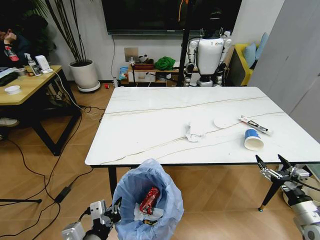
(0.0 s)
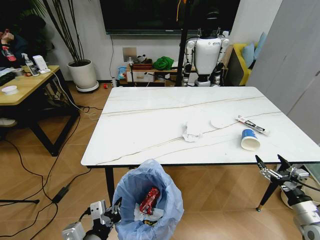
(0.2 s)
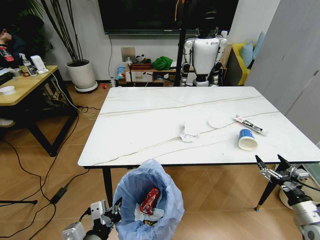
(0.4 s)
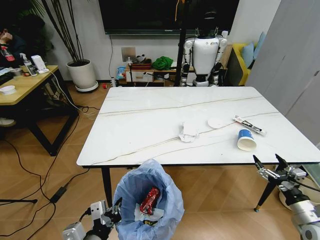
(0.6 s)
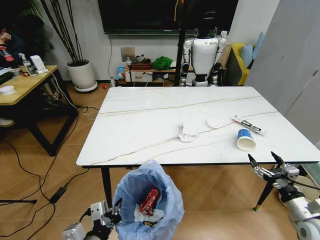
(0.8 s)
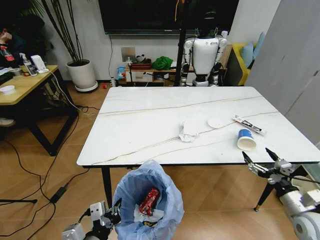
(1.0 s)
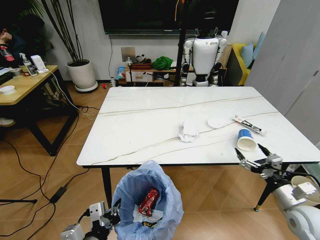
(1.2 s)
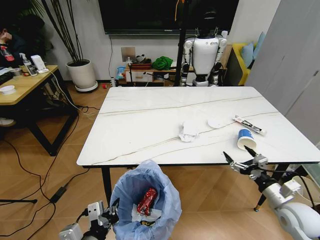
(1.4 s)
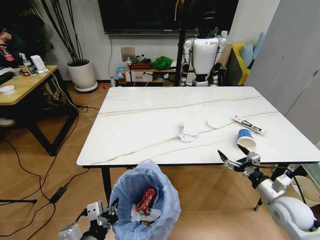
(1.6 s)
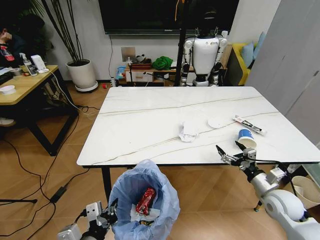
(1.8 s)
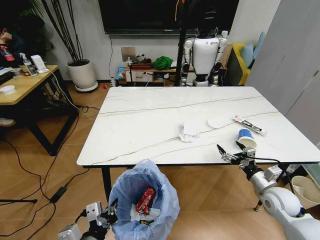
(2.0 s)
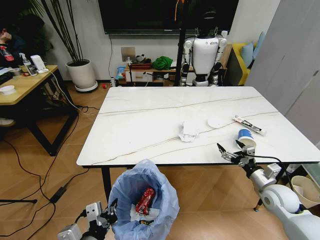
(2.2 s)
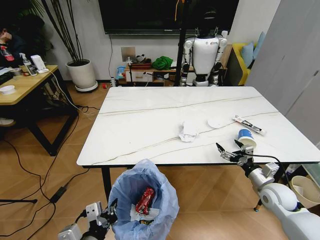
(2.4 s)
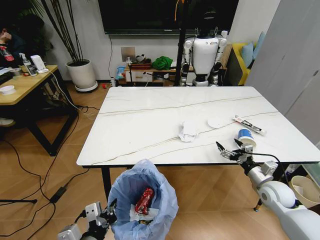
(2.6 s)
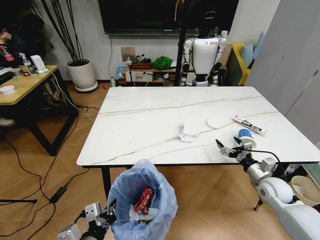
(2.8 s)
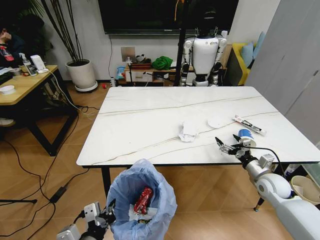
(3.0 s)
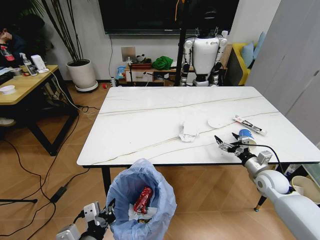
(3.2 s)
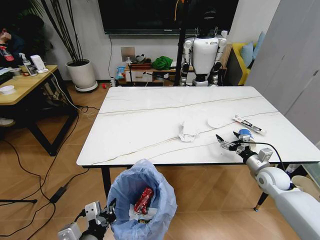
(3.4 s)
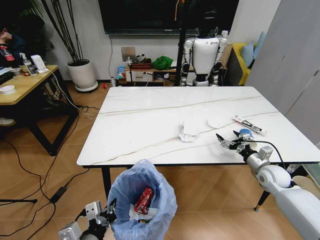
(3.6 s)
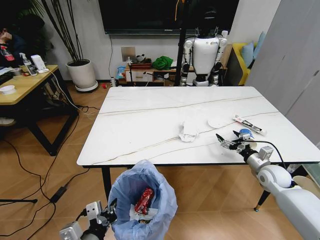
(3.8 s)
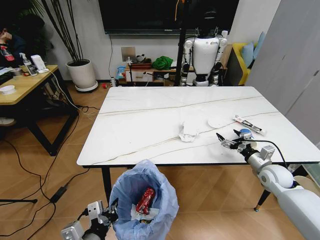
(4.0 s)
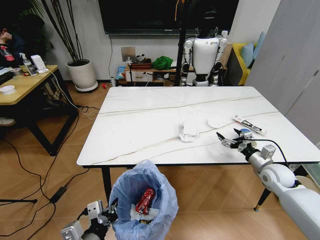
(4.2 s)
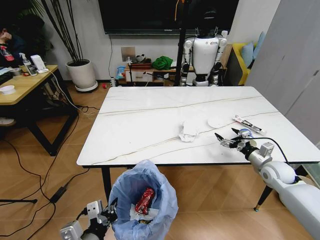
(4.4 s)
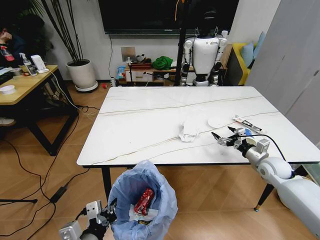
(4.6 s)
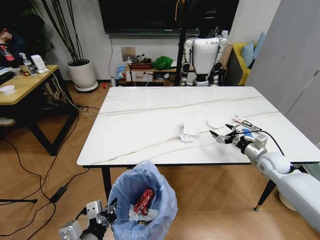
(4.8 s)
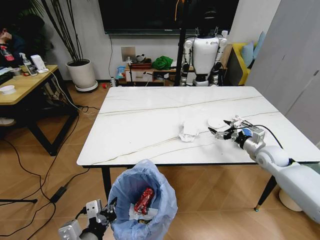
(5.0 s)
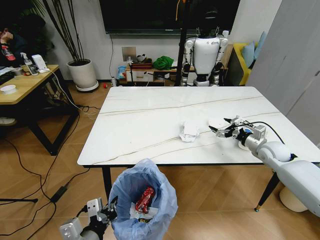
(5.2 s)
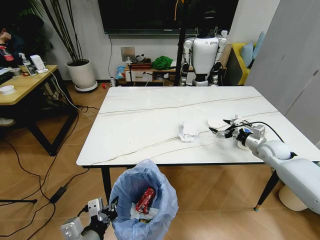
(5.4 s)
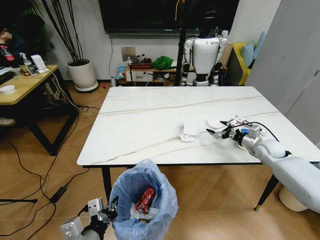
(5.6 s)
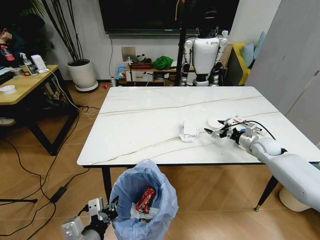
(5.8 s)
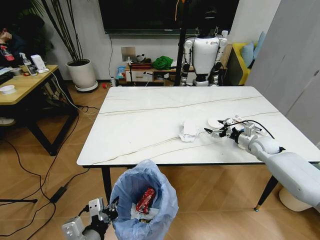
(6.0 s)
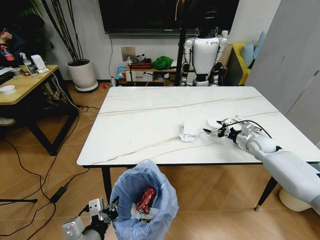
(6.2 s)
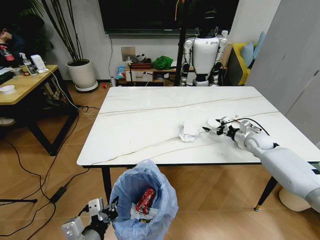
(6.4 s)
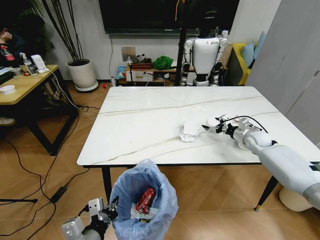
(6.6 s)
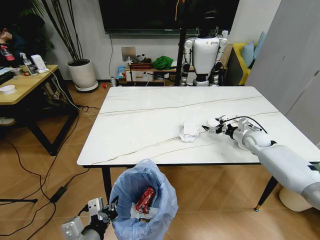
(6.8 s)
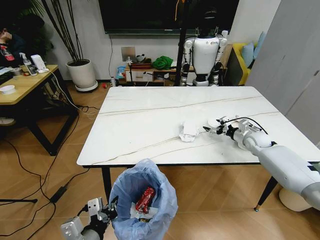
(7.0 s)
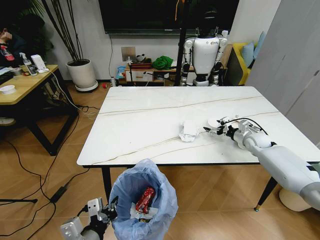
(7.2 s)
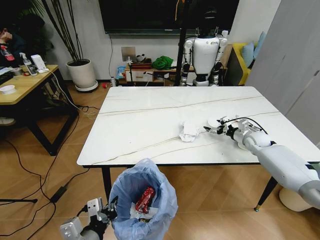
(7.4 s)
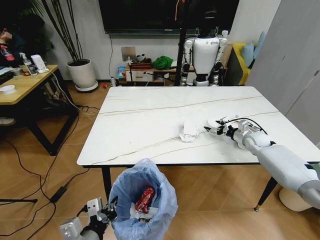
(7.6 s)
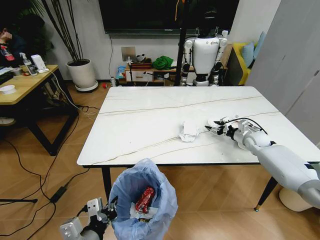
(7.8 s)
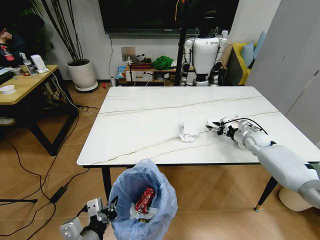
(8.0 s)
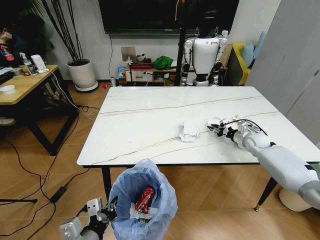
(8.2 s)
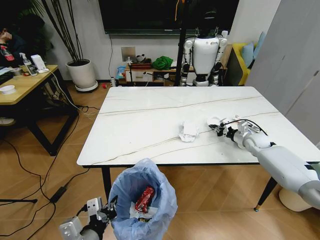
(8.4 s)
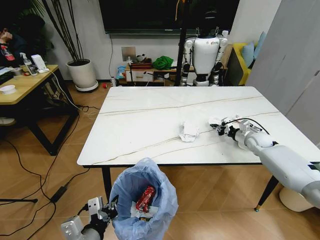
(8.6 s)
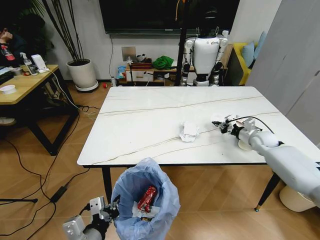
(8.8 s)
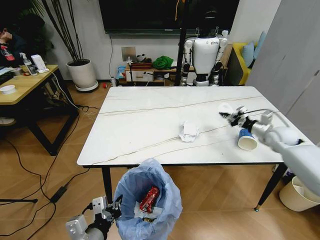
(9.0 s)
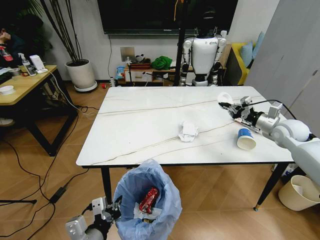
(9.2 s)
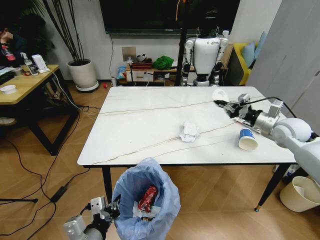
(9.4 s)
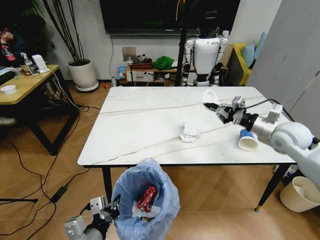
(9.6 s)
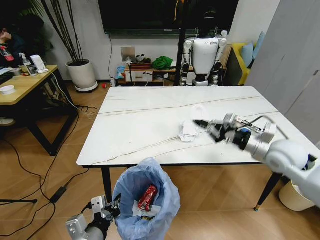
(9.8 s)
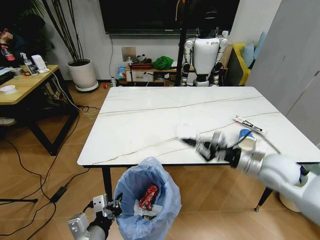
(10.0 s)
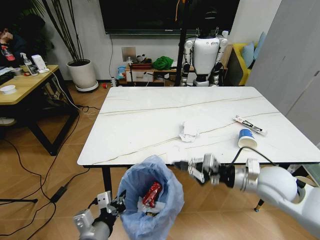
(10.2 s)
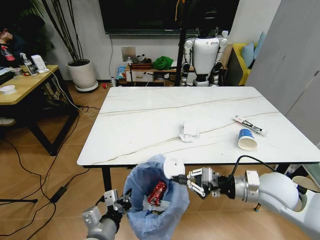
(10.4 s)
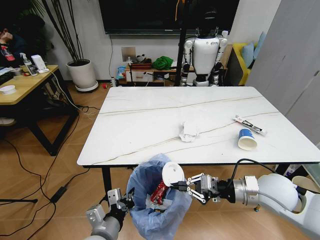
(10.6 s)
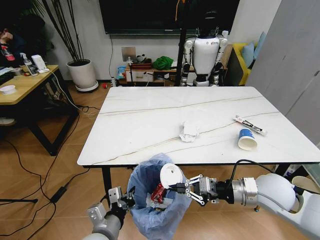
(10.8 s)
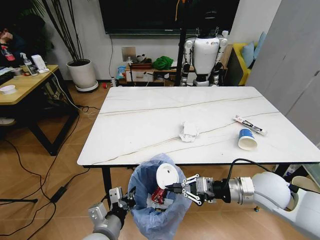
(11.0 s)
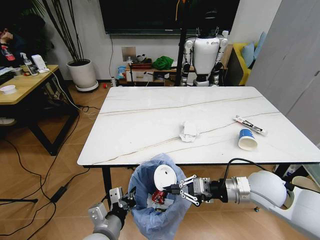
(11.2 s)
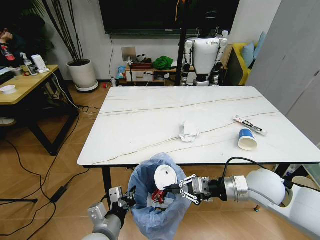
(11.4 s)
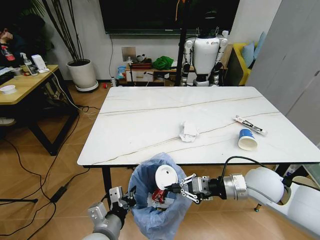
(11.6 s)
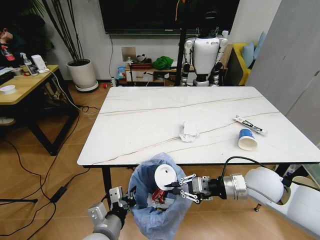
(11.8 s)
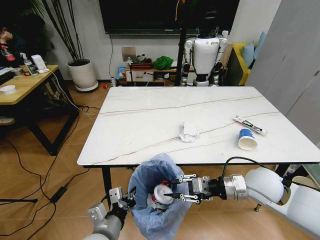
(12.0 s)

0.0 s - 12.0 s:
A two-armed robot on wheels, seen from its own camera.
Task of the whole recording: Pick up the trash bin and place the trash from the table into it.
0.0 s - 1.6 s: The right gripper travels to the left and forward by roughly 10 cm.
1.6 s - 3.0 s: The right gripper travels forward by some 10 cm.
3.0 s - 4.4 s: The grippers move only a little.
4.4 s - 6.0 s: The right gripper goes roughly 10 cm forward.
6.0 s - 7.6 s: The grippers make only small movements.
7.6 s - 9.0 s: The right gripper heads upward, covering roughly 5 cm, and closes up.
9.0 s - 10.4 s: The right gripper is displaced backward and to the left by some 30 cm.
10.4 s - 12.0 s: There are only small adjustments of the grippers.

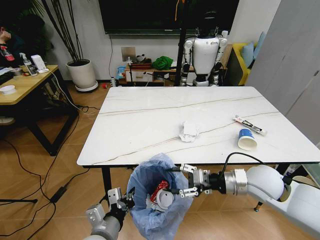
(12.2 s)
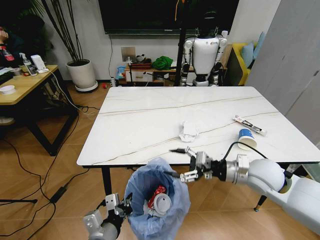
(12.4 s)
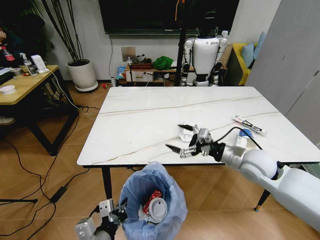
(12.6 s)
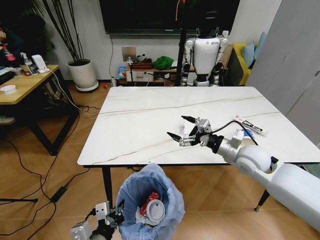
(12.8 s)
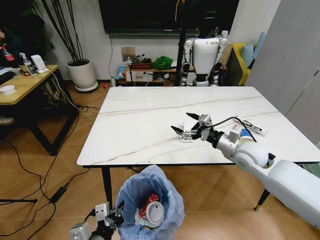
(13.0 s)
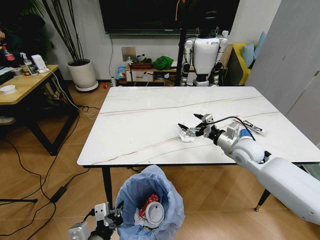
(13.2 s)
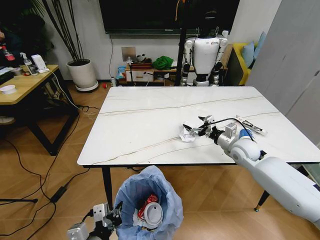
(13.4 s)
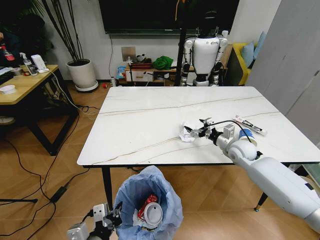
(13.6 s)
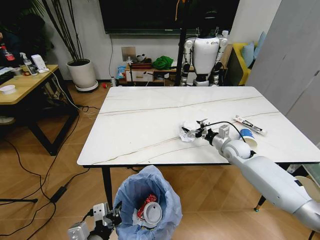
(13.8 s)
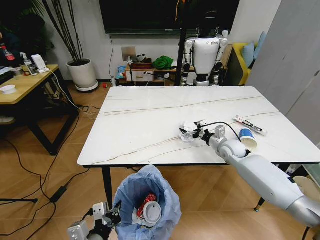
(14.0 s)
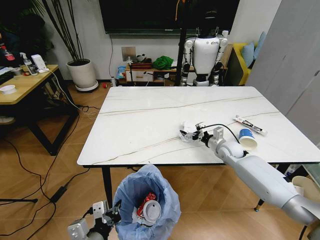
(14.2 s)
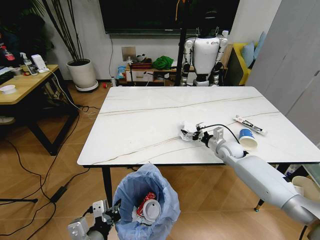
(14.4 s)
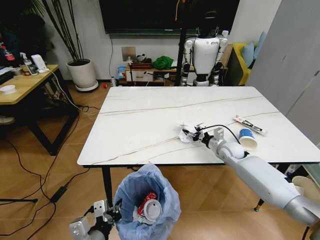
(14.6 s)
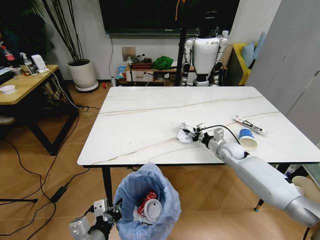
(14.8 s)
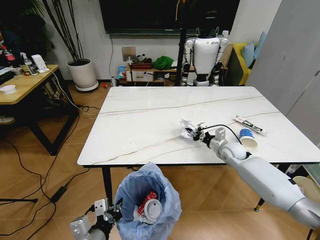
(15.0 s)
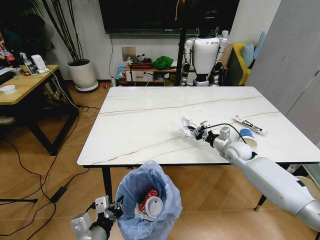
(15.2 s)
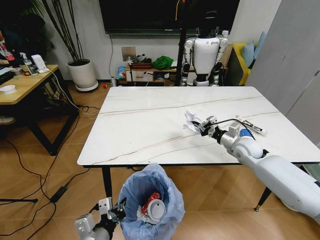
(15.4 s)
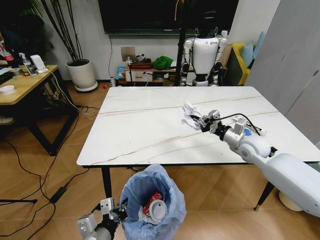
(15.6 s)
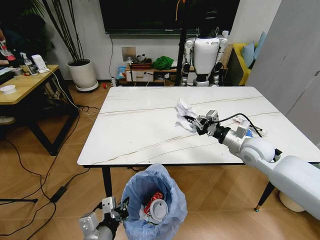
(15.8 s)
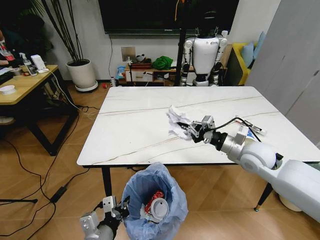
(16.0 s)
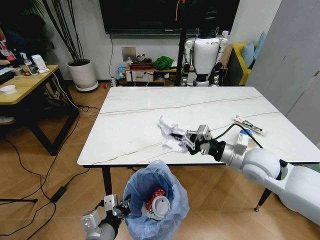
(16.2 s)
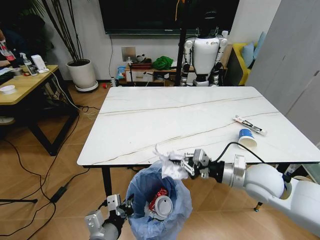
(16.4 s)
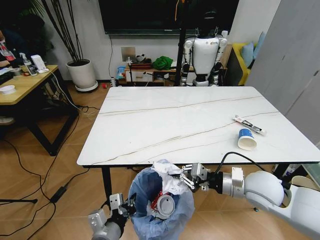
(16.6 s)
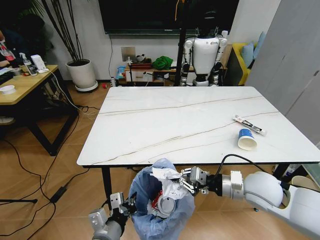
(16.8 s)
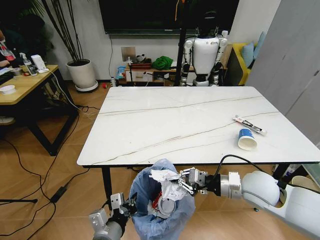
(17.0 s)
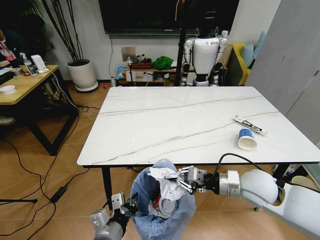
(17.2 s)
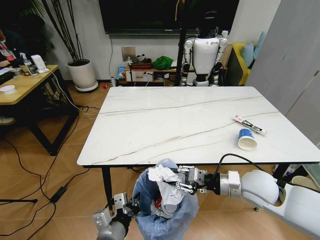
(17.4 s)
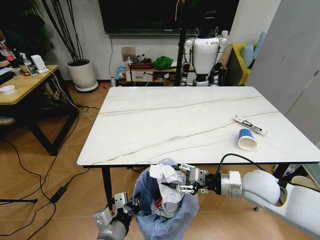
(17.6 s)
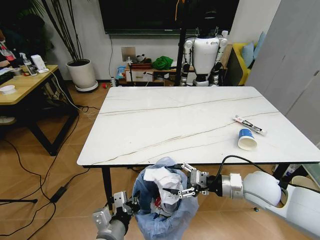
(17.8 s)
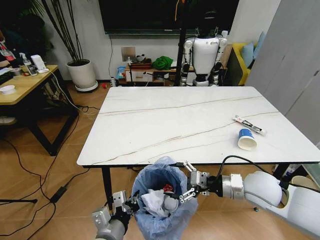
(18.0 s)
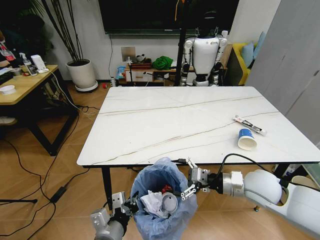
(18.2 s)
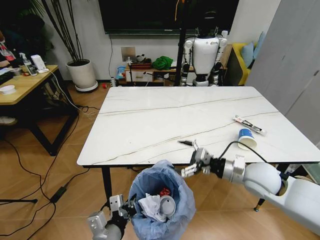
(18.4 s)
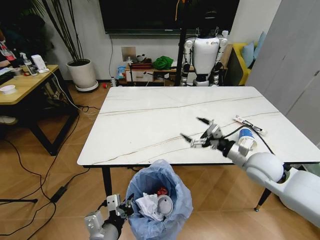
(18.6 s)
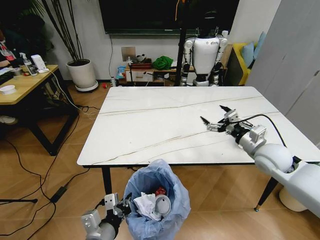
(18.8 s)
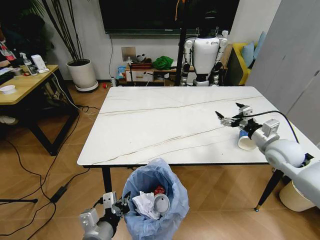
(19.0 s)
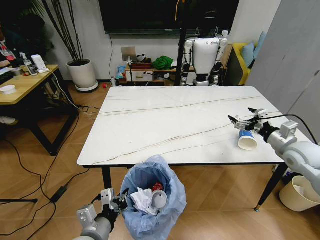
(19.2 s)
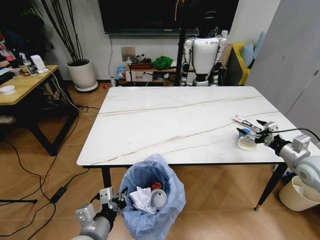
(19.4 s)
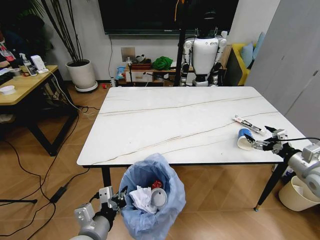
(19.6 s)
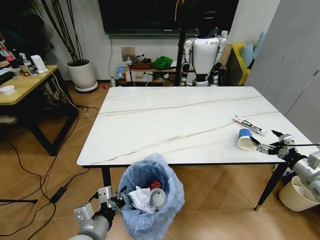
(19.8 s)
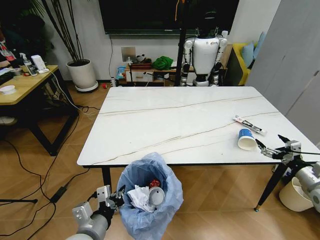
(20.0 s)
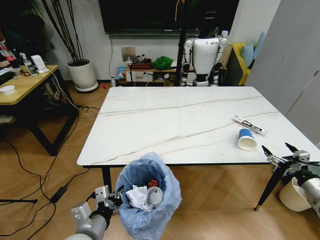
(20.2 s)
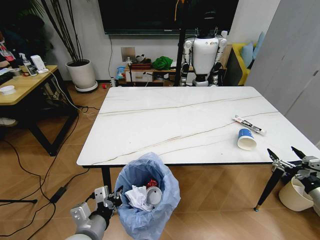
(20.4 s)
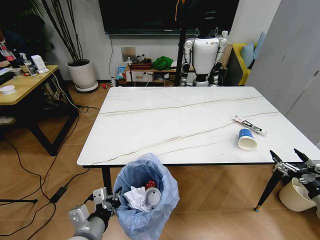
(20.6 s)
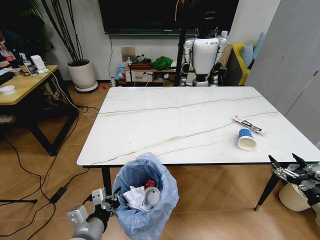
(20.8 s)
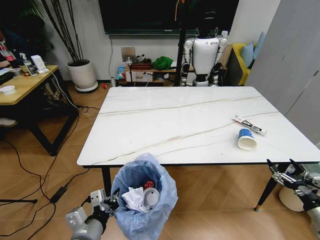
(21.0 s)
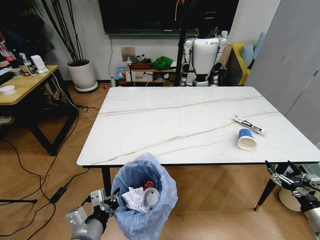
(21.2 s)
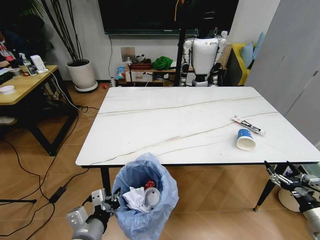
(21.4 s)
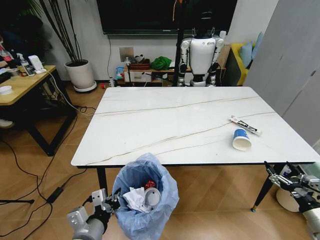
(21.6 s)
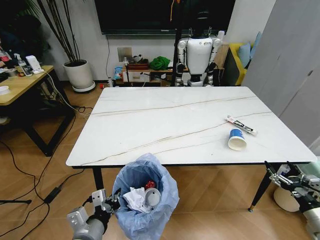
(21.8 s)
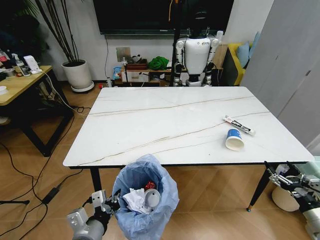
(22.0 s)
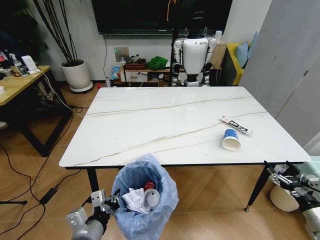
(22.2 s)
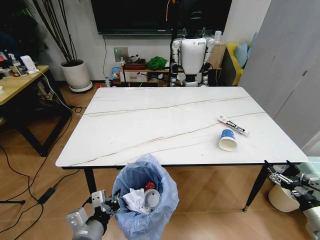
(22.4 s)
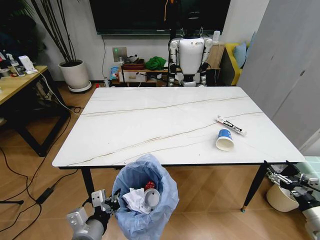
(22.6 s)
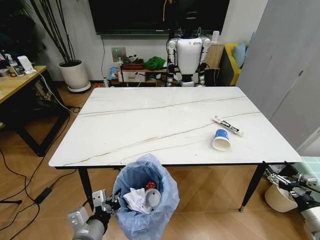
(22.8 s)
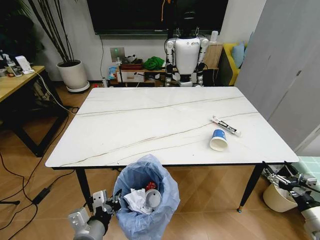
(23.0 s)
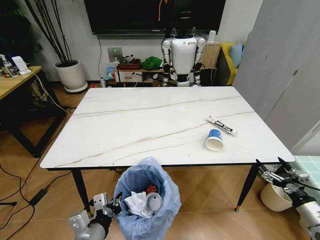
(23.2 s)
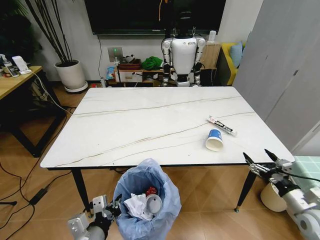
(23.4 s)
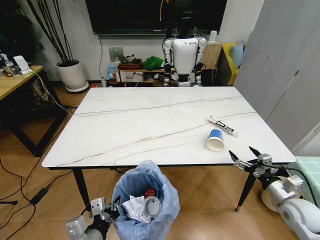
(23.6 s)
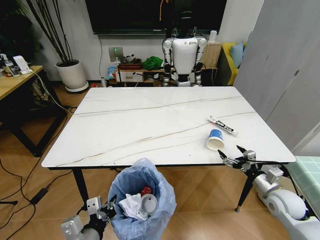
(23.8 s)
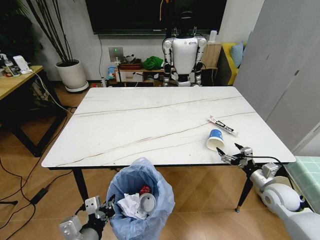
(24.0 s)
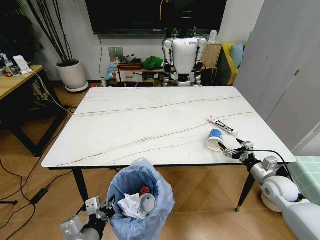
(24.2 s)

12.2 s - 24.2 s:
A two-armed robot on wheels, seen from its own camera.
Task of the whole recording: Pick up the trash bin and place the trash from the table into it.
12.2 s - 13.8 s: The left gripper moves some 5 cm; the right gripper moves forward and downward, roughly 20 cm, and opens up.
13.8 s - 15.2 s: The right gripper closes its fingers.
15.2 s - 16.6 s: The right gripper travels backward and upward by approximately 20 cm.
16.6 s - 18.2 s: The right gripper opens up.
18.2 s - 19.8 s: The right gripper travels to the right by some 25 cm.
19.8 s - 21.2 s: The right gripper shifts some 15 cm backward and downward.
22.6 s - 24.2 s: The right gripper travels forward and to the left by roughly 20 cm.
